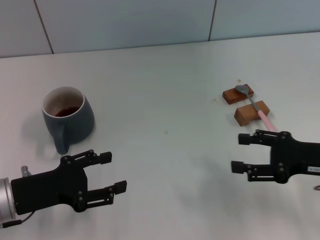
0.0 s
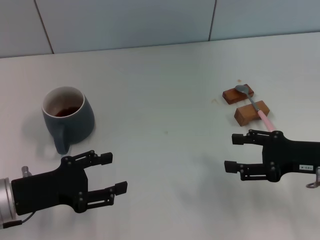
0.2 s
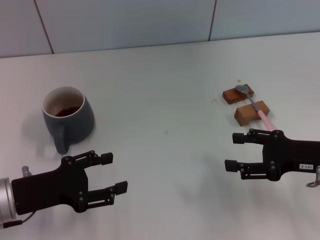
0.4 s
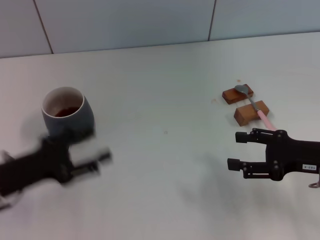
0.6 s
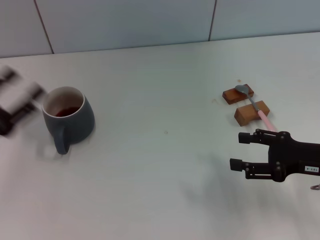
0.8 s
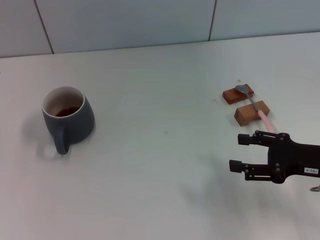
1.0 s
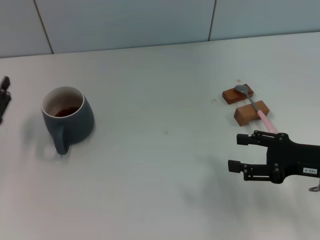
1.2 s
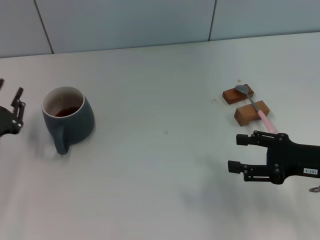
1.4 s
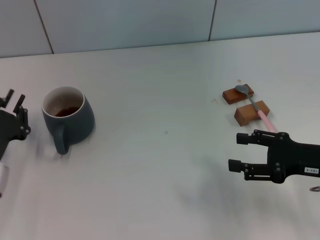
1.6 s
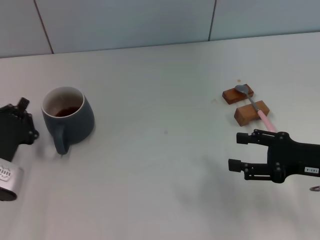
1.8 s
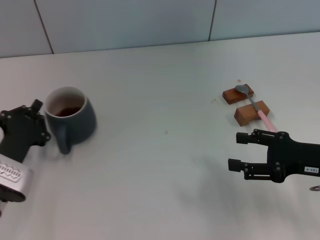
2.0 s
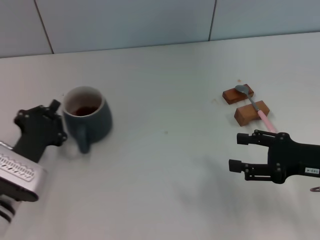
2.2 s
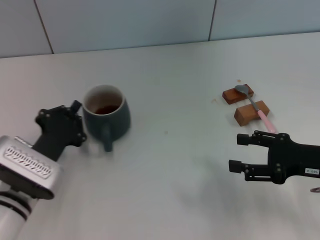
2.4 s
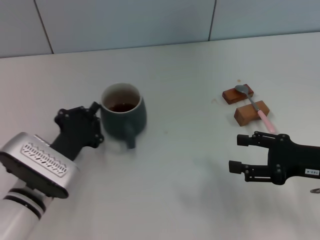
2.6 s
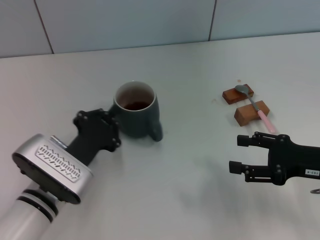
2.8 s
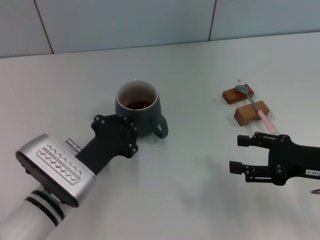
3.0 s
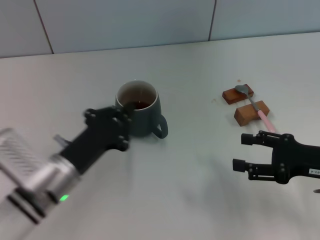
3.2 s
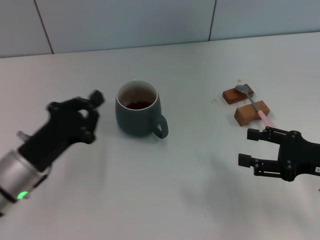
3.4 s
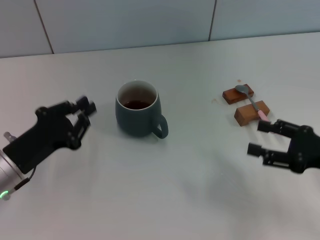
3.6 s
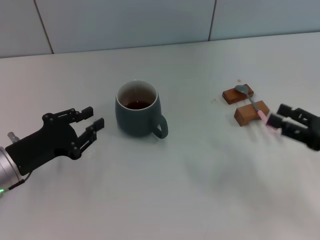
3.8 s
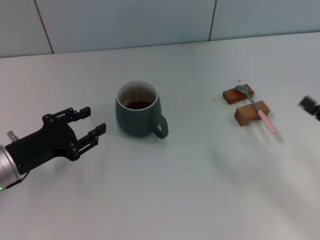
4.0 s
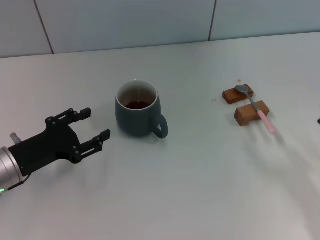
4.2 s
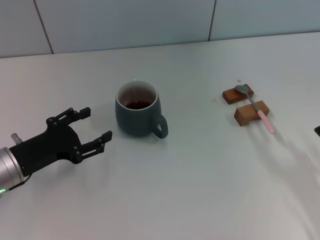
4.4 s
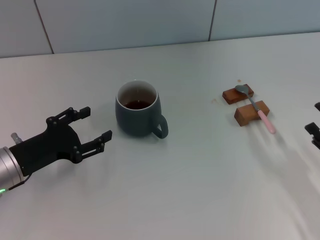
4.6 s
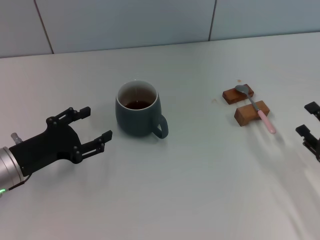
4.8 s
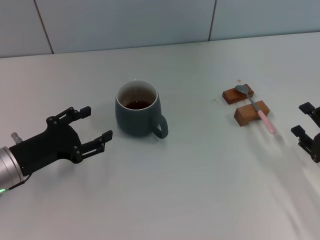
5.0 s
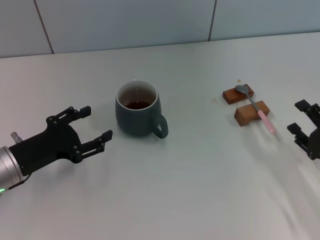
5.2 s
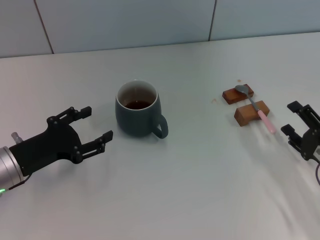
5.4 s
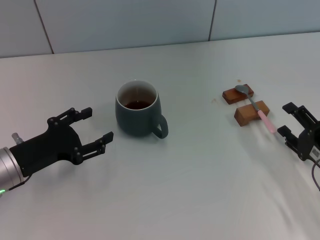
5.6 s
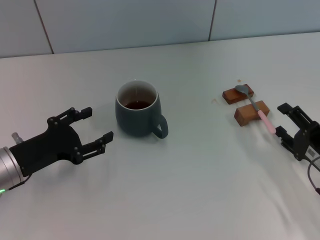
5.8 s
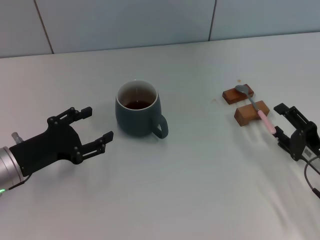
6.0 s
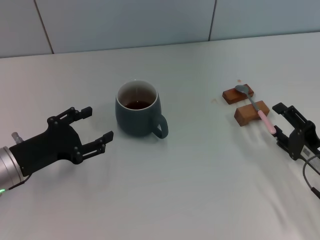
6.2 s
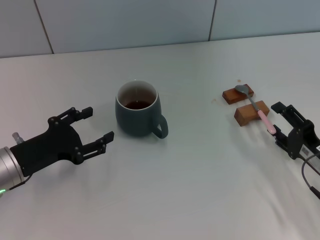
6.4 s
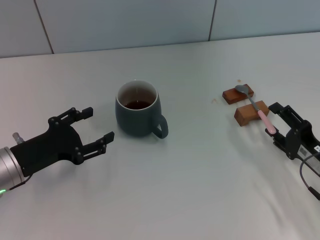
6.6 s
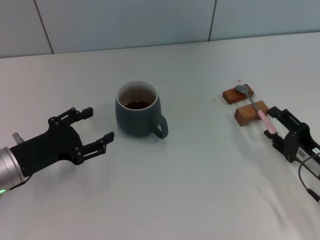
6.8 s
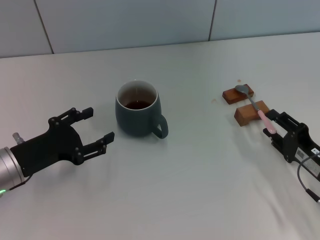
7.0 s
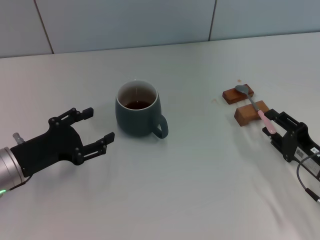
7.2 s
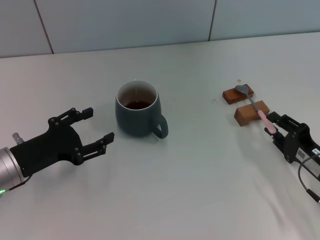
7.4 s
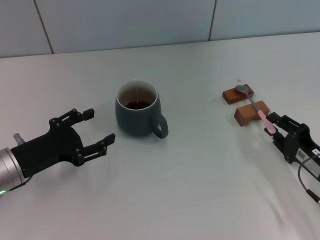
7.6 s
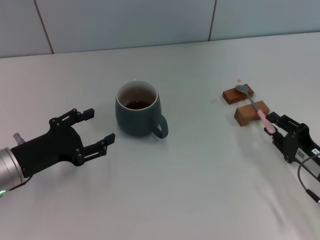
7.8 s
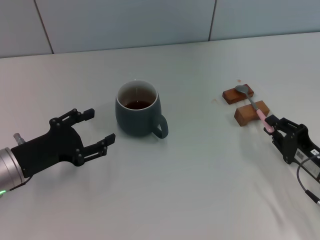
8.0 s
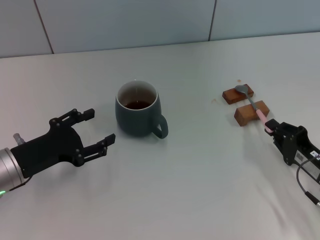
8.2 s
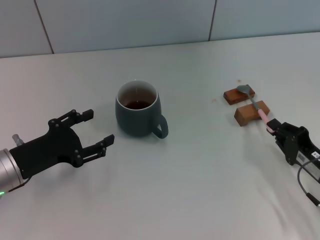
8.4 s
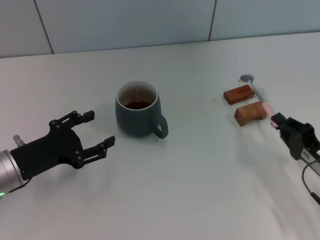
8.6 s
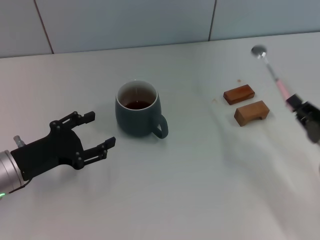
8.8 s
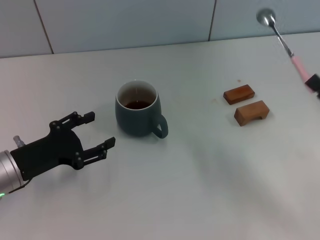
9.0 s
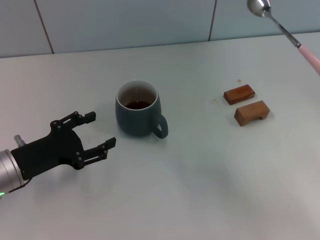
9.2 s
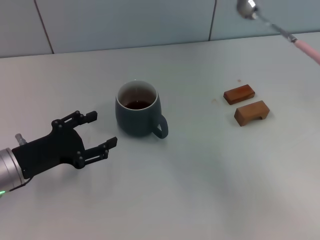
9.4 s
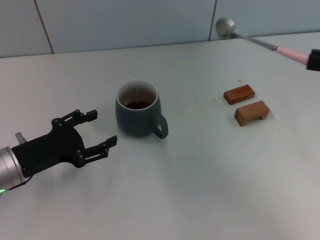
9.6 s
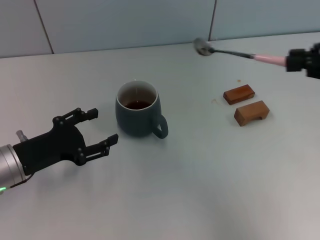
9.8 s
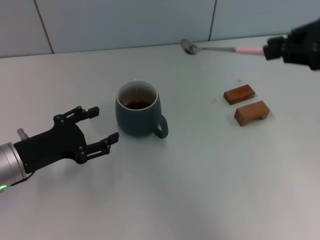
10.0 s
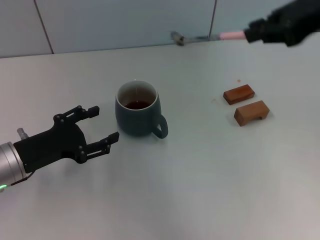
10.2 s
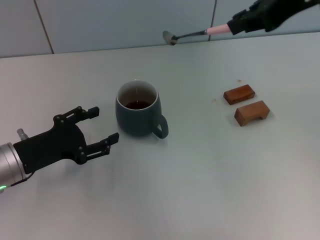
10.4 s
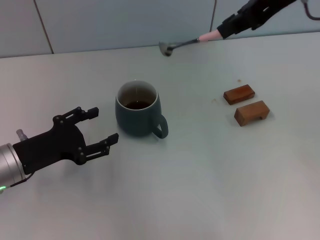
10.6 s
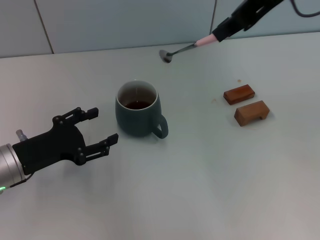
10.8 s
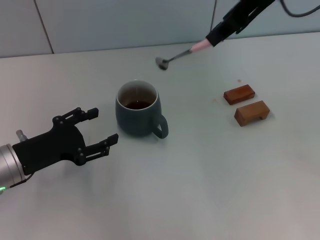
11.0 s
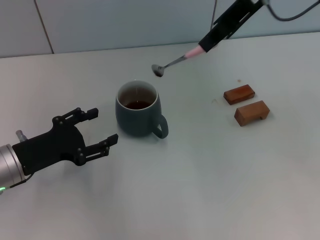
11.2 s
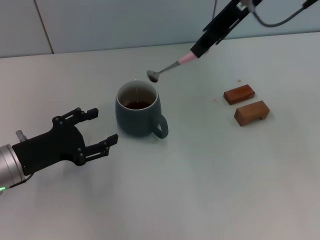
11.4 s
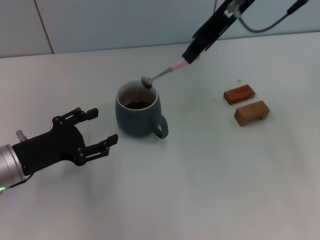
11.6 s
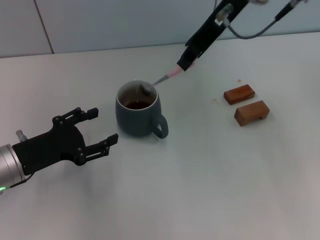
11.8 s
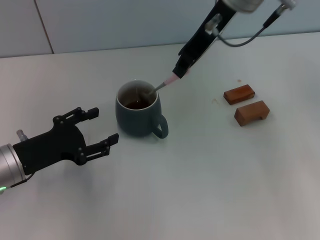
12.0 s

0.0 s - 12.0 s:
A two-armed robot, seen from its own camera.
Task of the whole recording: Move the grey cup to the center, lift the pink spoon, stir it three times in the cup, and put the spoon into the cup.
Step, 0.0 s - 2.6 s: Move the cup with coffee to the center of view with the left gripper.
Step, 2.8 s - 8.8 s: Pick up the spoon with the right gripper.
0.0 s - 1.6 s: The left gripper reaches about 10 cm to the left, then returns, and closes.
1.6 s - 3.0 s: The left gripper shifts about 10 cm to the right, and closes its fingers.
3.0 s - 4.4 s: The right gripper goes approximately 10 cm backward and downward. Meanwhile the left gripper moves to the left, some 10 cm, and opens its fingers.
4.4 s - 6.0 s: The right gripper shifts by roughly 5 cm.
6.0 s - 7.6 s: The right gripper closes its fingers.
7.6 s - 9.0 s: The right gripper goes roughly 5 cm upward, and closes its fingers.
9.0 s - 10.4 s: The right gripper heads upward, forward and to the left, covering approximately 30 cm.
10.4 s - 12.0 s: The right gripper shifts roughly 15 cm to the left, forward and downward.

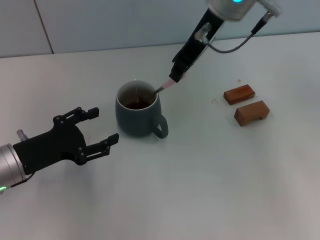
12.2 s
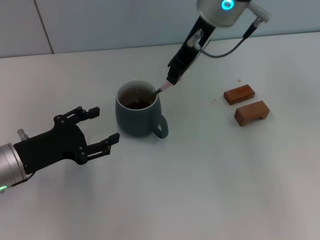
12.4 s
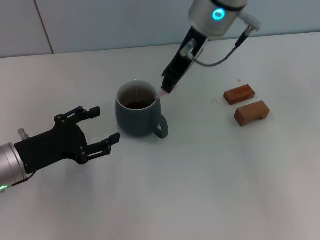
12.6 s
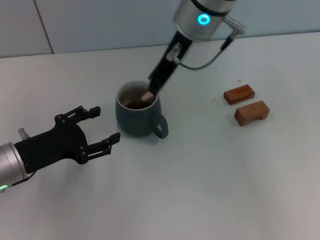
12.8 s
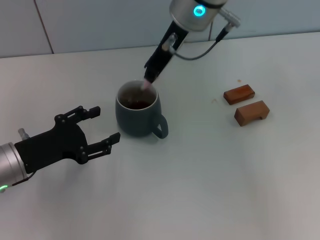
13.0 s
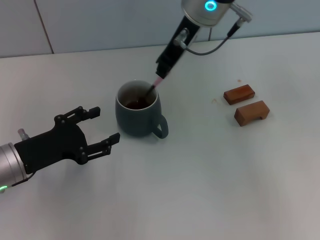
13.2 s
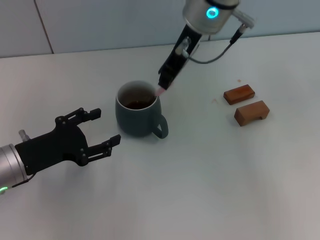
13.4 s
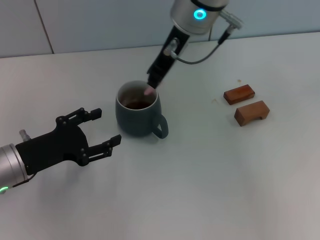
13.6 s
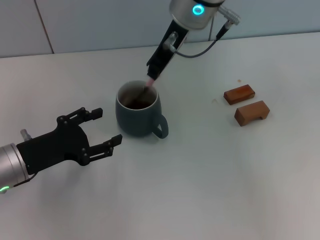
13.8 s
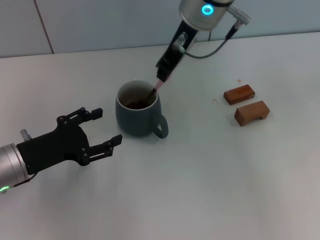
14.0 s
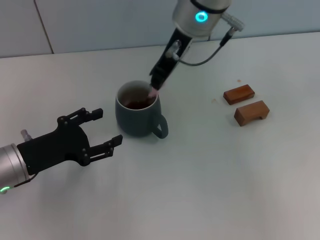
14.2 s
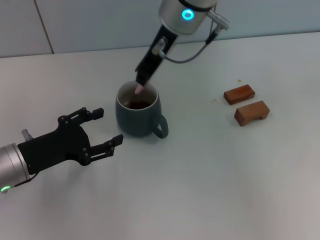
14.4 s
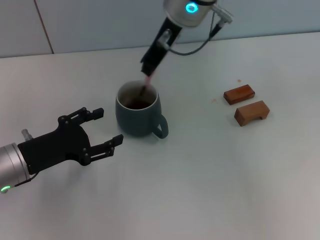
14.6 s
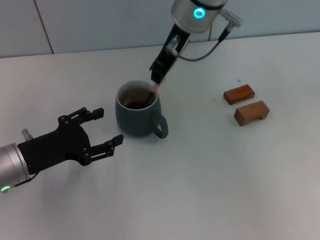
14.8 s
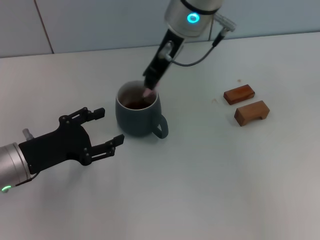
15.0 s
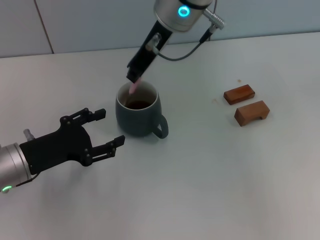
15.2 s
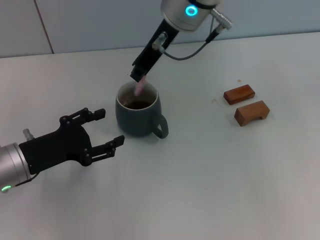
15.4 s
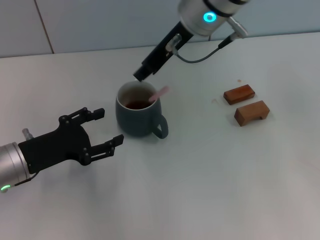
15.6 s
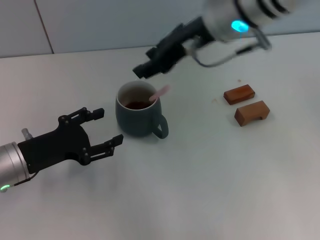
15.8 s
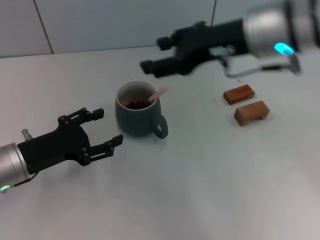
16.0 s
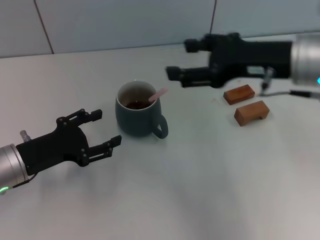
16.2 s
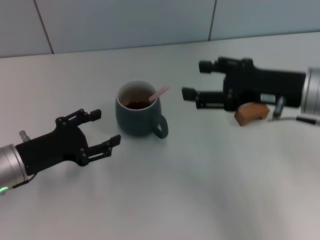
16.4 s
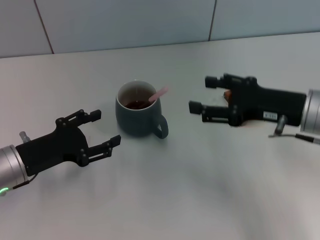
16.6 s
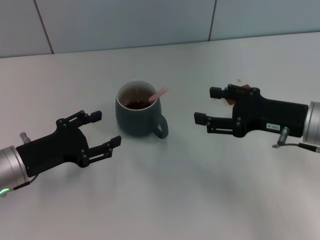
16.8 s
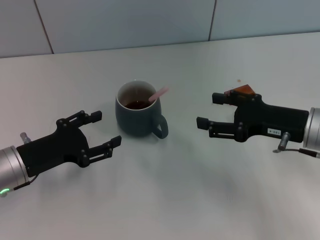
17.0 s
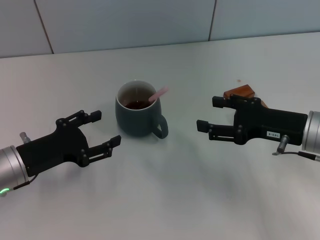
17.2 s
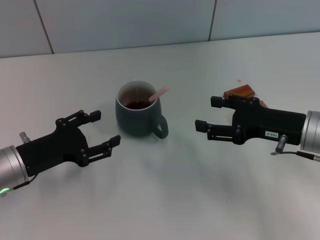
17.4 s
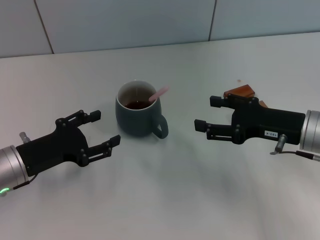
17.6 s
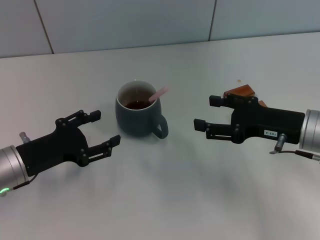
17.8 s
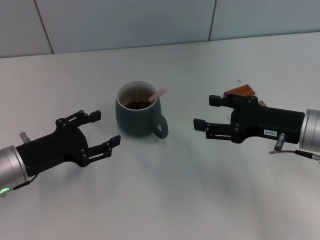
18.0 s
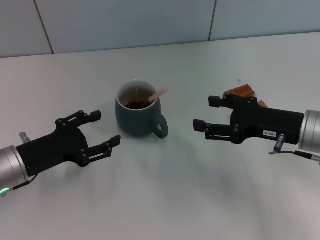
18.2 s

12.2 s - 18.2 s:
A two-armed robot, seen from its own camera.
Task of the whole recording: Move the grey cup to the center, lift the pink spoon, stir it three times in the cup, and put the spoon into the cup.
12.2 s - 15.2 s: The grippers make only small movements.
15.2 s - 16.6 s: The right gripper travels to the right, backward and downward by roughly 25 cm, and opens its fingers.
16.6 s - 18.2 s: There are only small adjustments of the grippers.

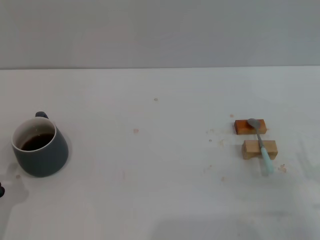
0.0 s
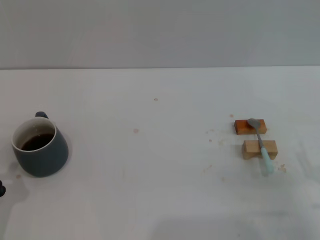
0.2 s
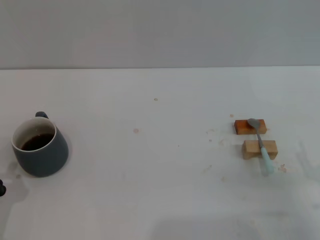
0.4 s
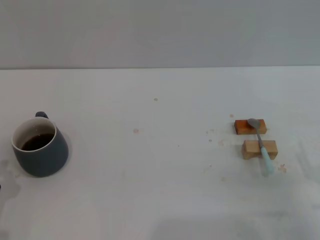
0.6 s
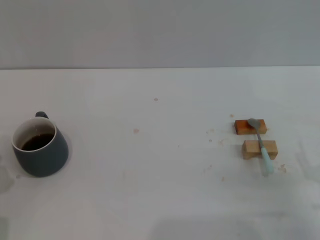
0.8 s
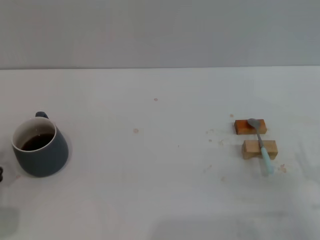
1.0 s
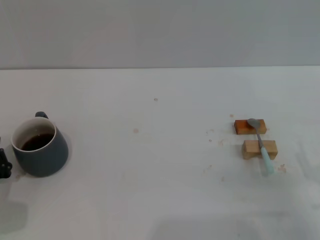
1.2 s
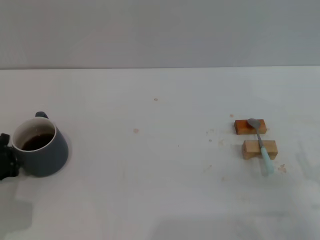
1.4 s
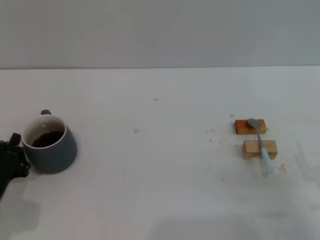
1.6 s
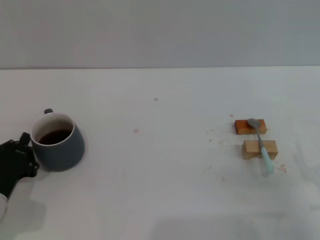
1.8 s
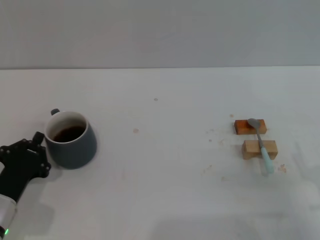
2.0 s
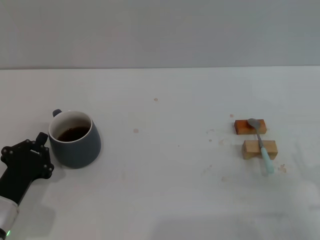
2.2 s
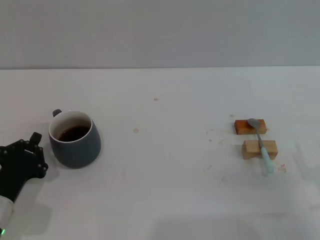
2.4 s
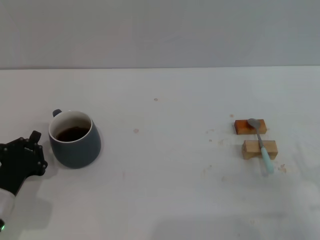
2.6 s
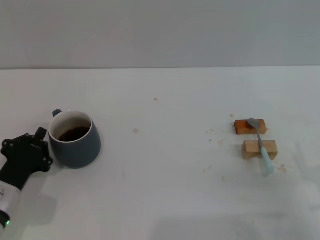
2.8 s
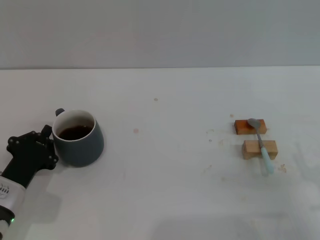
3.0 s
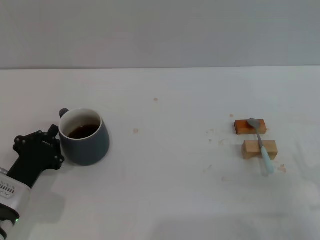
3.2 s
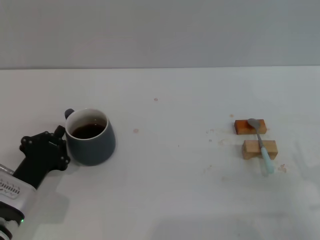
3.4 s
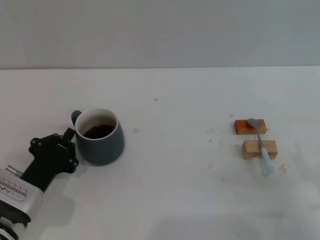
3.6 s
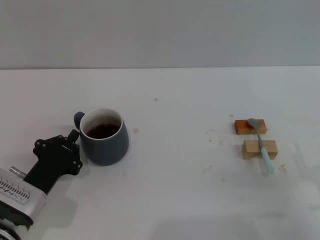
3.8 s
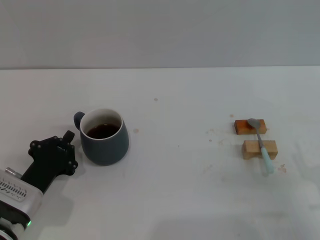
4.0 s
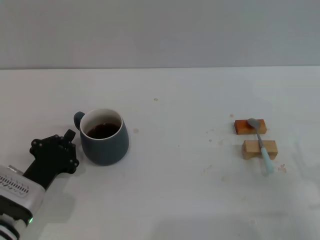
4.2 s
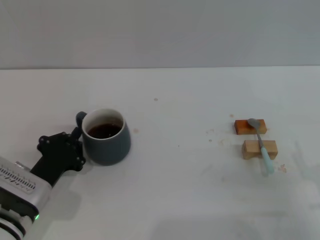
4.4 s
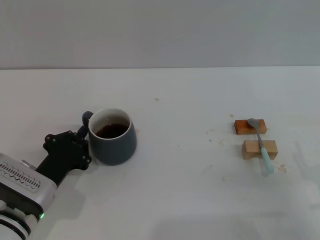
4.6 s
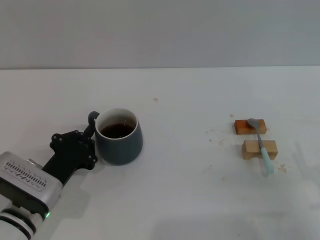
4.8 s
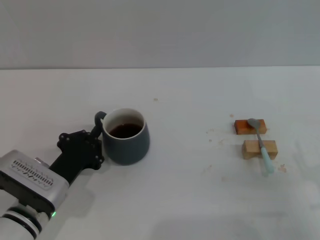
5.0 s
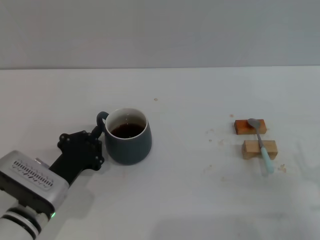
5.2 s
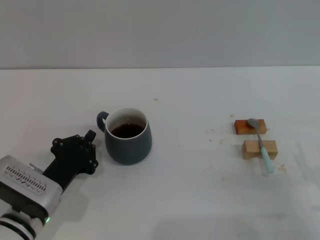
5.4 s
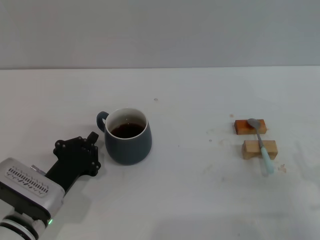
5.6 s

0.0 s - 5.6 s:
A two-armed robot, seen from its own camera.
Task of the whole recording: Move the grey cup to the center, lift the blue spoon, stir it three times in the cup, and put the spoon into the cup.
0.0 s - 1.4 s: The left gripper moves forward, some 5 cm.
1.4 s - 2.8 s: The grippers stay close to where they were, moving slightly.
2.8 s - 4.2 s: The grippers make only small movements.
4.2 s - 5.6 s: The grippers stay close to where they were, moving slightly.
